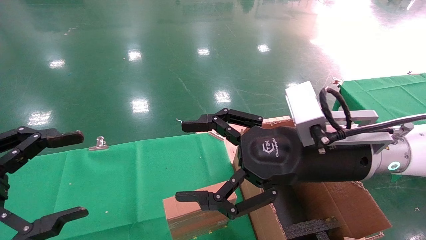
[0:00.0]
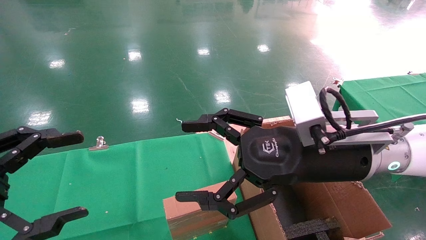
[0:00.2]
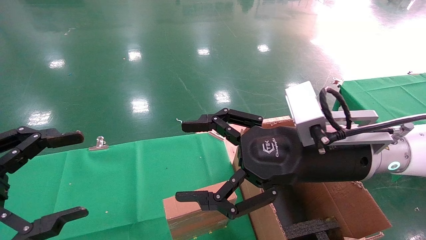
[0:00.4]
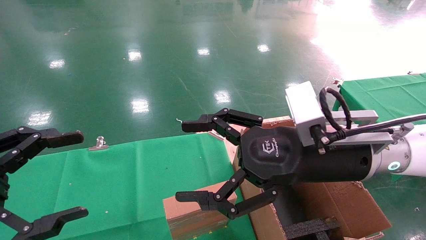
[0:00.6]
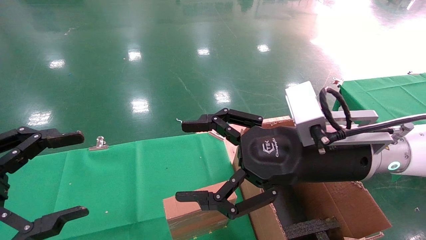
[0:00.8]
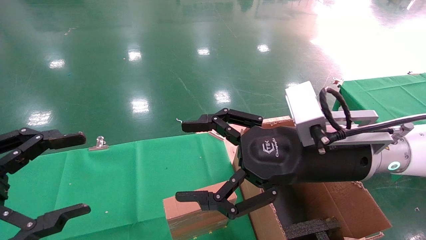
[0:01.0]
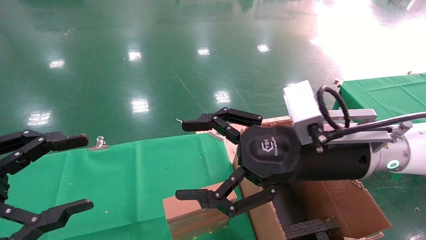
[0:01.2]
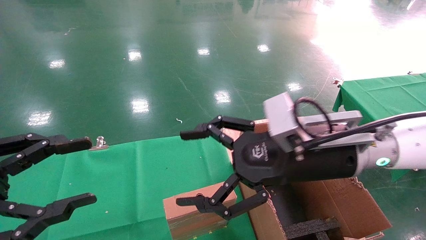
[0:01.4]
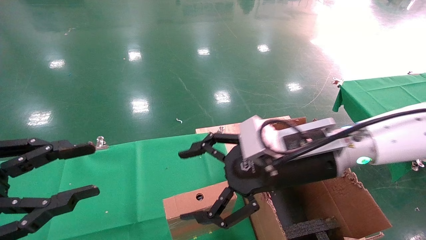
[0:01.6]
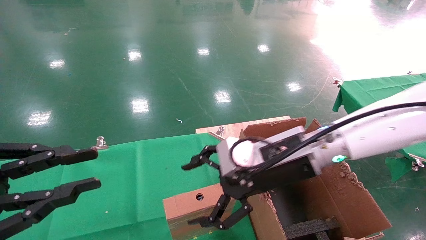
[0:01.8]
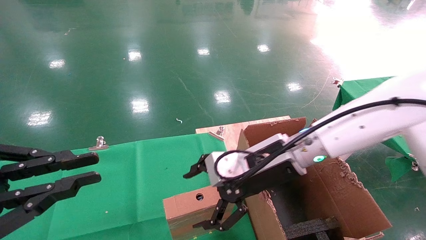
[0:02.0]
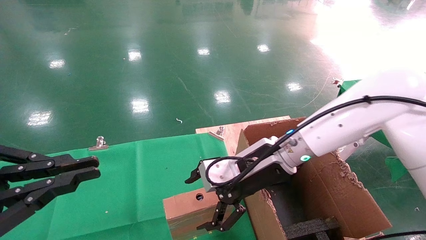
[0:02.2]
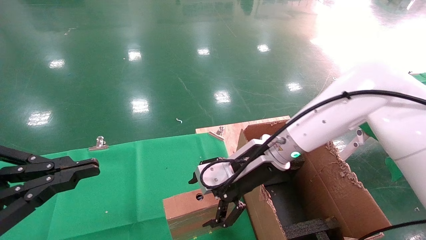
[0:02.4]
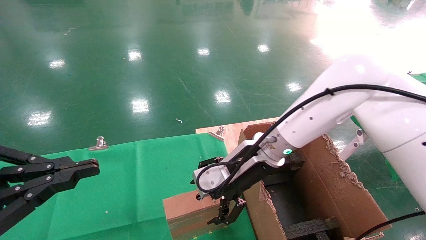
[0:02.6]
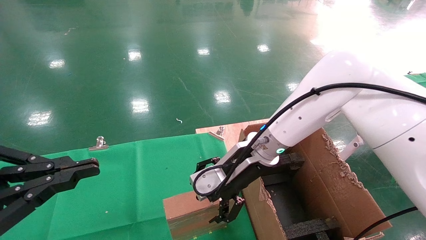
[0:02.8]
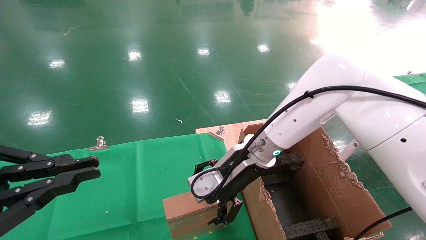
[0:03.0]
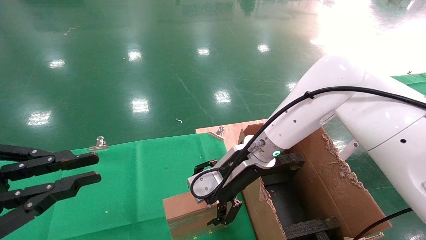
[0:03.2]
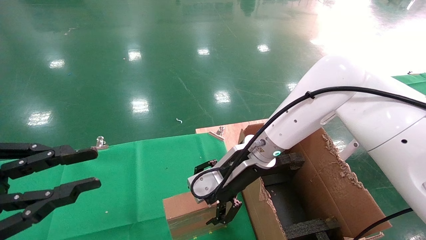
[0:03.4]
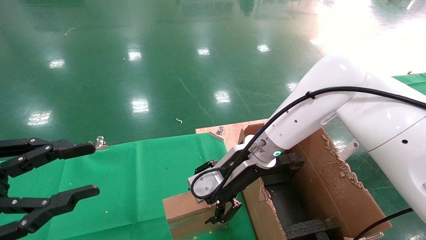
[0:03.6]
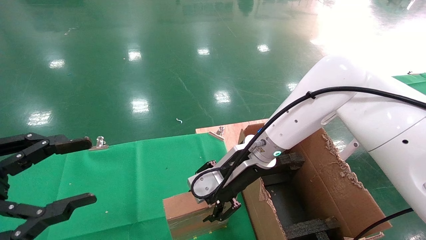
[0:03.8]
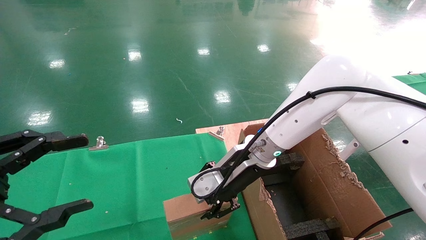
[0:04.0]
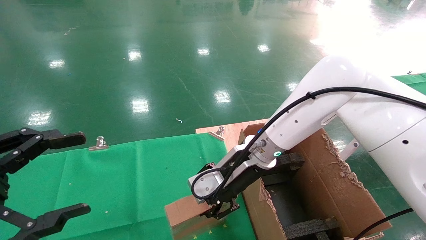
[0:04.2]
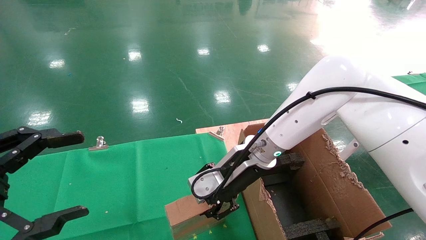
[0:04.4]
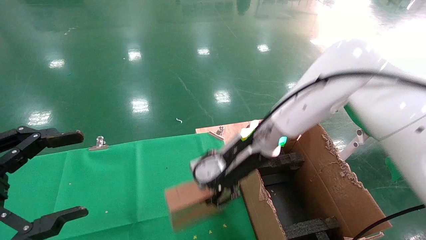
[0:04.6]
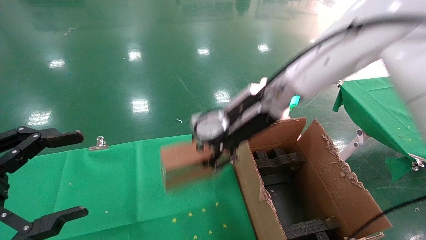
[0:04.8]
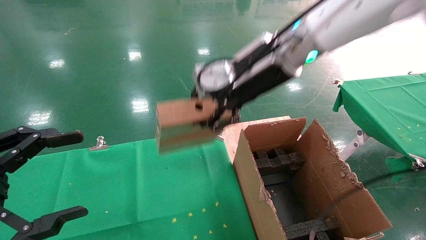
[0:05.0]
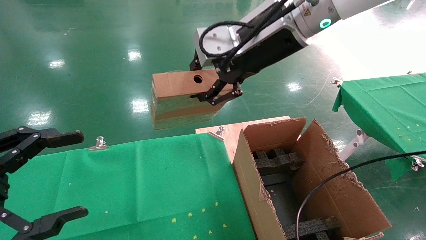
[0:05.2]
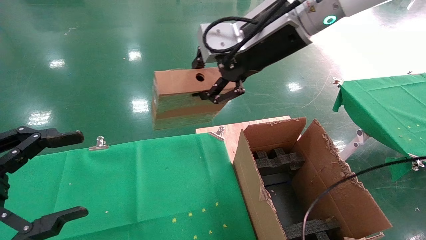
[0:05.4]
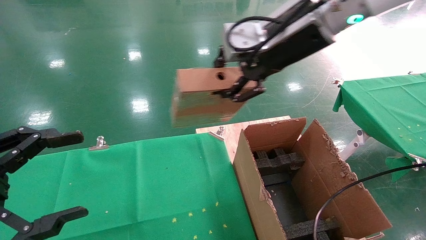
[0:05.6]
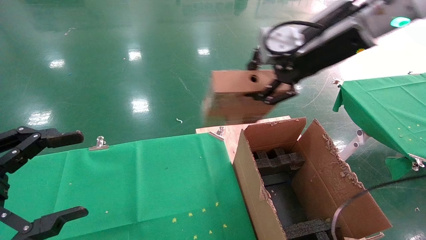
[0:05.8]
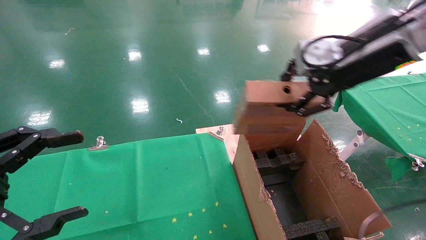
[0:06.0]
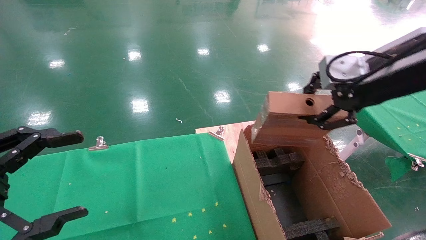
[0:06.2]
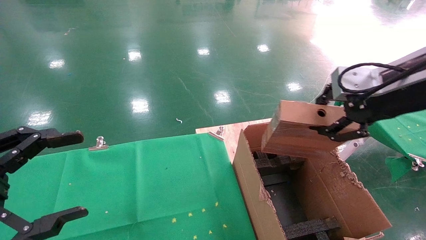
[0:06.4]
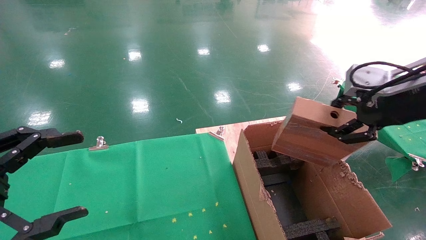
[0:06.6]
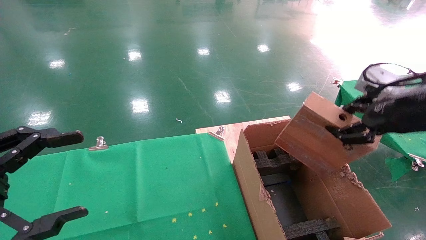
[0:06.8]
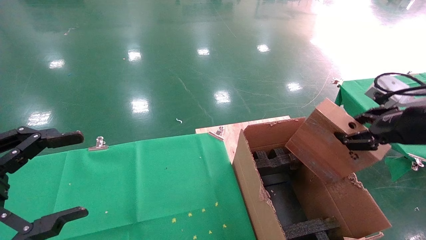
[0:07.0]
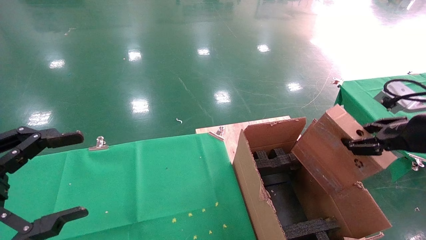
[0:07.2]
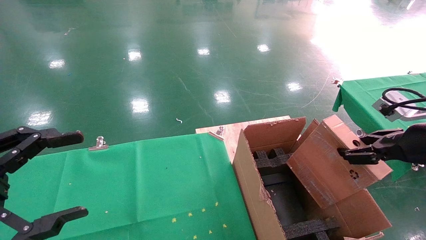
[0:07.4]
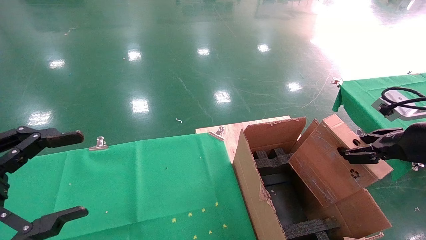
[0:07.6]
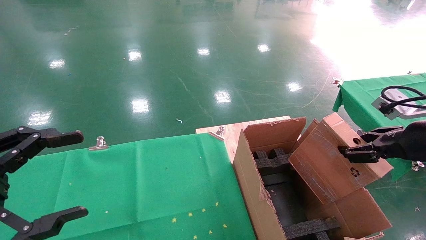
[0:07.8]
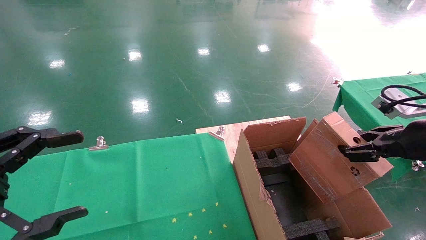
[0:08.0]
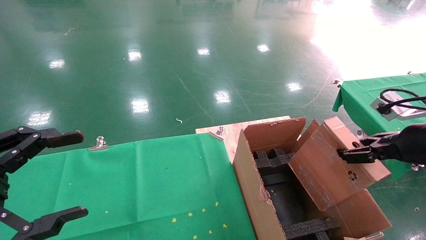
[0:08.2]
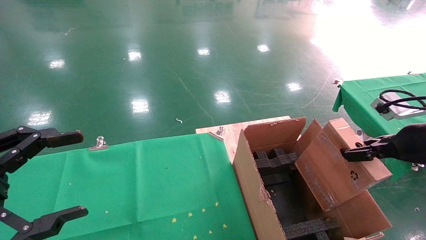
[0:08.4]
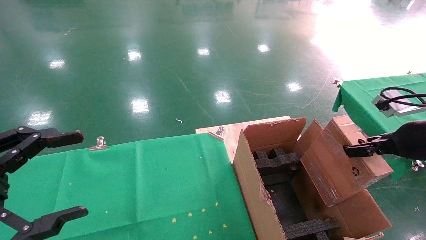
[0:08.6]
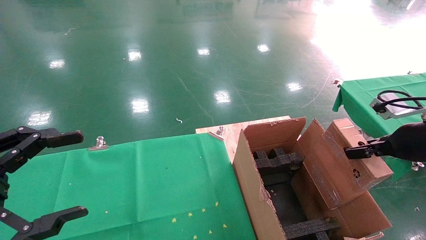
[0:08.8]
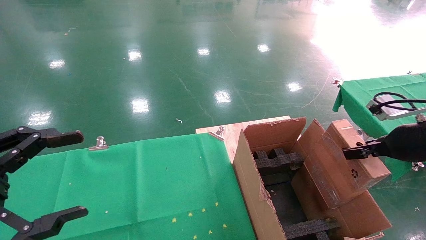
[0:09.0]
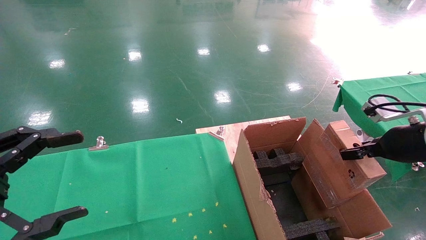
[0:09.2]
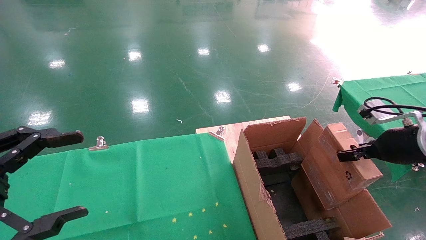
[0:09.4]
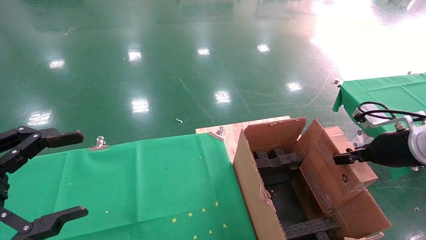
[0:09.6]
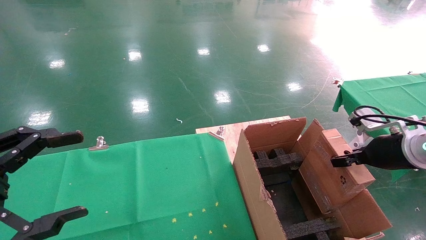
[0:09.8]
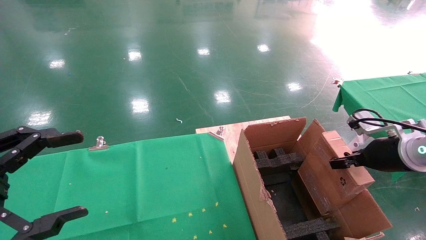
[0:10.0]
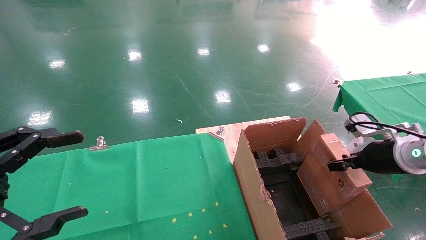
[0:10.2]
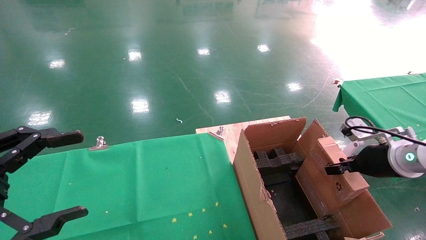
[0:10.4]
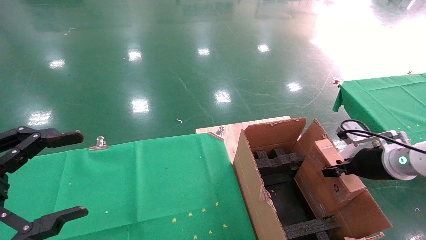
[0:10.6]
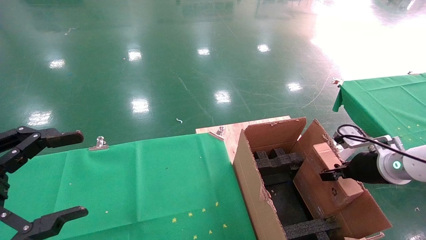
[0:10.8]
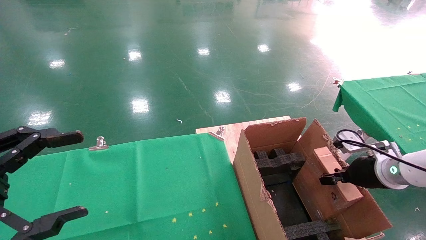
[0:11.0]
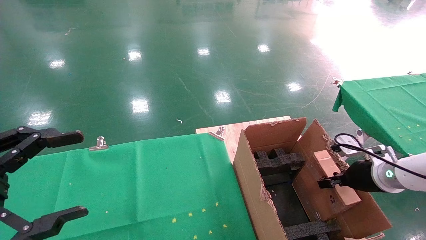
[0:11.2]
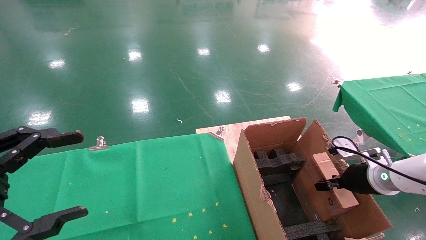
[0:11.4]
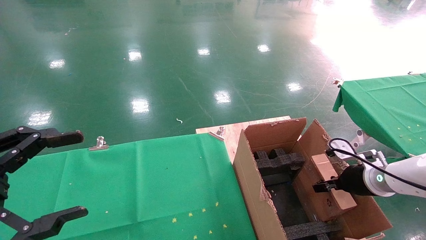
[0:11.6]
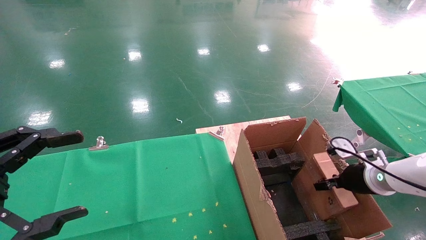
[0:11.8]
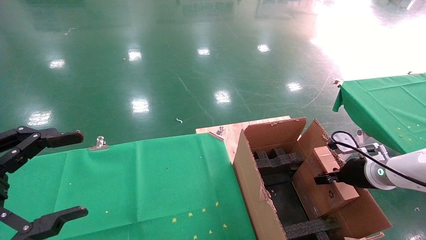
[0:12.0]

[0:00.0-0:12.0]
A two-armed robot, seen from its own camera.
Task of the whole recording: using a robotic arm to pick up a cardboard box and palace it the carton.
Step, 0:01.4 to 0:04.6: Pick up the mouse and the power cord paper box.
0:00.0 to 0:01.6: The left gripper closes its fingers.
0:01.6 to 0:03.0: The left gripper closes up. The right gripper shifts roughly 10 cm forward and to the left.
0:03.0 to 0:04.4: The right gripper closes its fingers, while the left gripper opens up.
0:04.4 to 0:06.0: The right gripper shifts some 25 cm upward, to the right and backward.
0:06.0 to 0:07.6: The right gripper travels downward, to the right and backward by about 20 cm.
0:07.6 to 0:09.0: The grippers make only small movements.
0:09.0 to 0:10.4: The right gripper travels downward by roughly 5 cm.
0:10.4 to 0:12.0: The right gripper heads downward, covering roughly 5 cm.

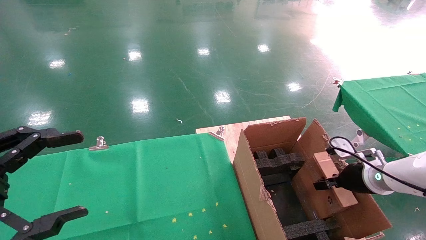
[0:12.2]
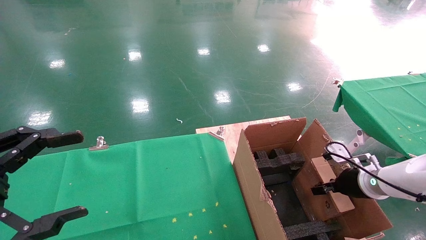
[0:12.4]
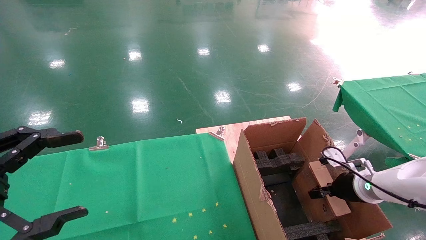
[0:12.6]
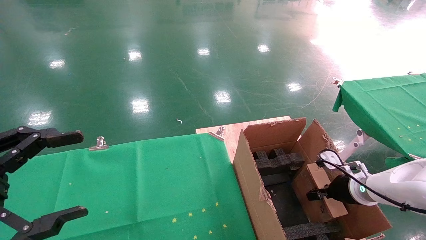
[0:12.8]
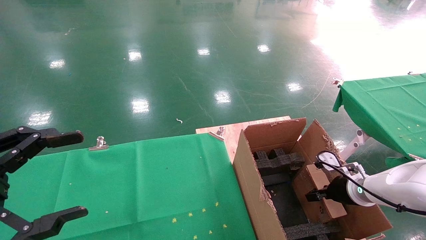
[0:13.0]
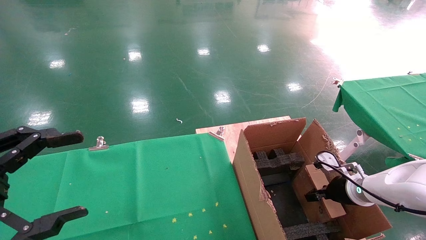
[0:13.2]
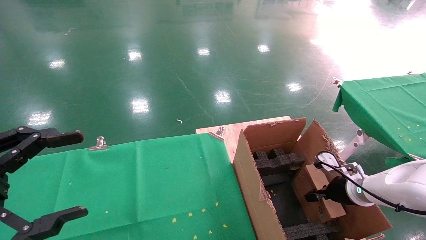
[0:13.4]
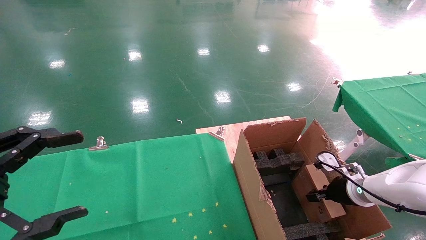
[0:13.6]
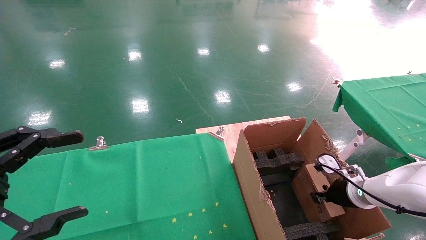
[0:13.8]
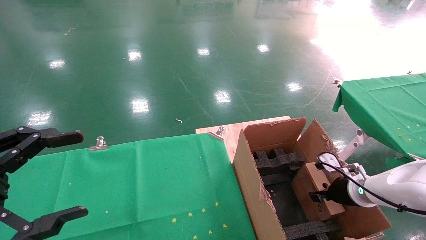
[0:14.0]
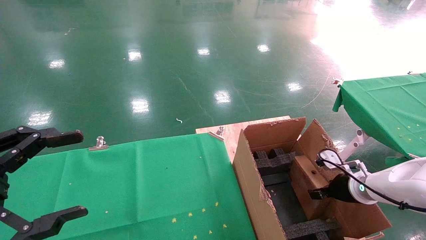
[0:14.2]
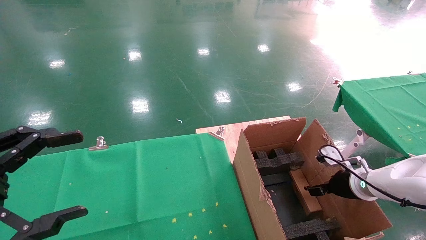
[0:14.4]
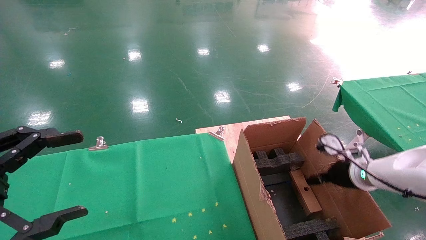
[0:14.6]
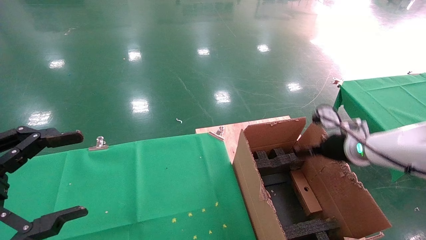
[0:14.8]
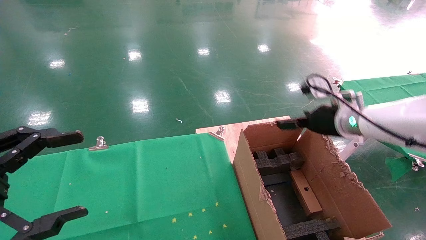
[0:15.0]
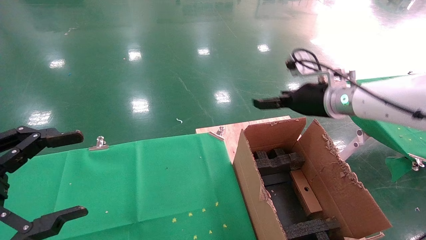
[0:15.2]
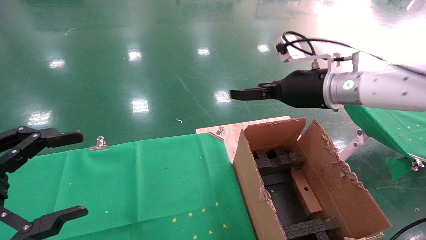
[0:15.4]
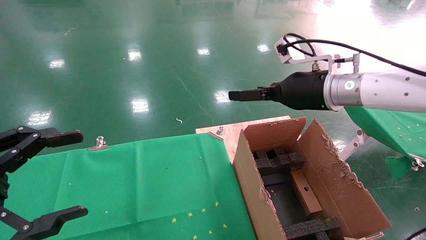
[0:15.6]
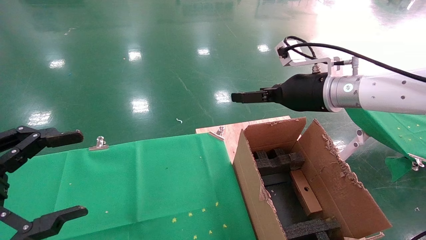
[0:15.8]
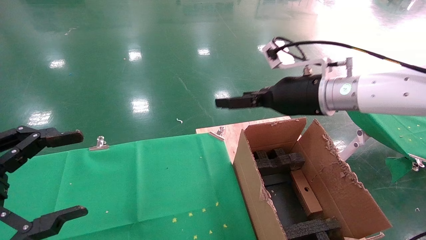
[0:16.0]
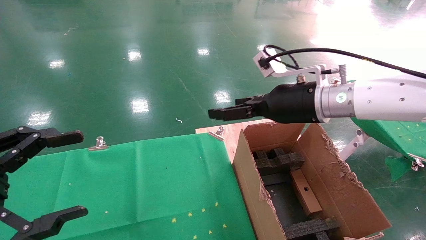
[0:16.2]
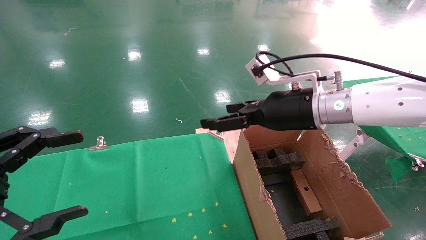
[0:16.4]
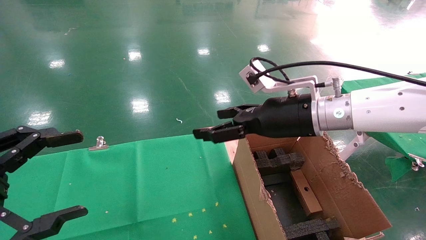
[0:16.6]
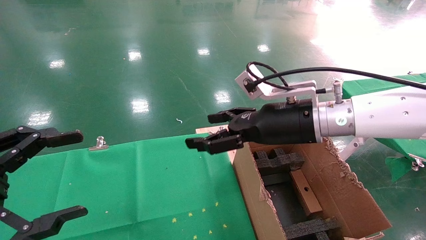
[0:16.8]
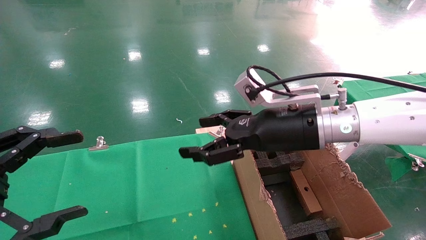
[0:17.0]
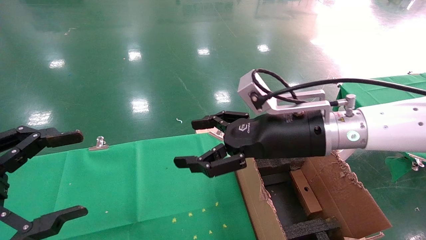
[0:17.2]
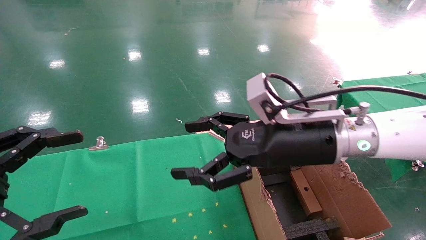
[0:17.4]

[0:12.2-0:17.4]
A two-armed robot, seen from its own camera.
Task of the whole recording: using a robotic arm to pick up a cardboard box and palace it the carton.
Step, 0:12.2 to 0:14.6: Place the mouse and the power cord paper box into the container.
0:12.2 to 0:14.0: The grippers stay close to where they were, moving slightly.
0:14.0 to 0:15.6: The right gripper is displaced upward and to the left by approximately 30 cm, and opens.
0:15.6 to 0:17.4: The right gripper shifts about 10 cm backward and to the left.
